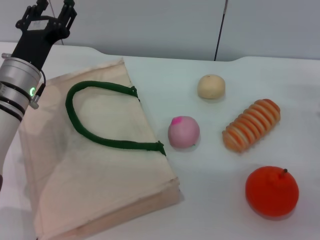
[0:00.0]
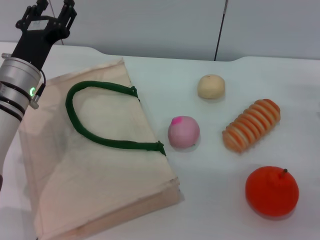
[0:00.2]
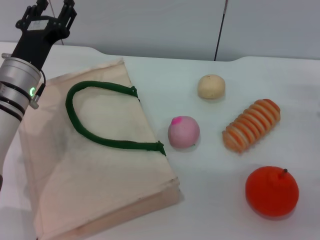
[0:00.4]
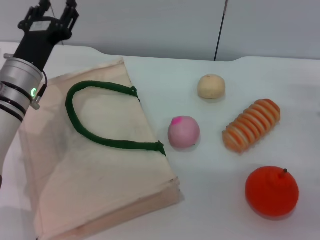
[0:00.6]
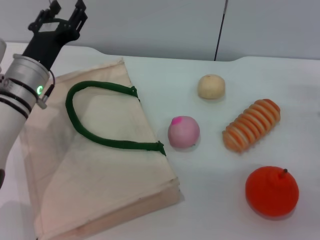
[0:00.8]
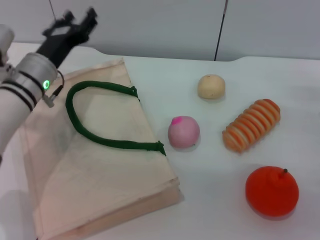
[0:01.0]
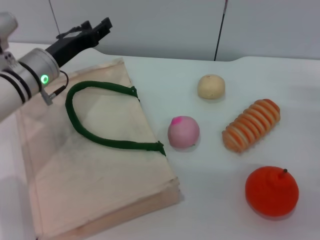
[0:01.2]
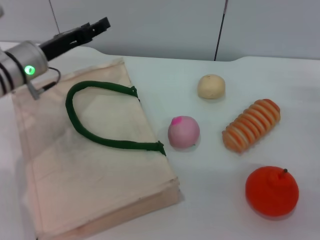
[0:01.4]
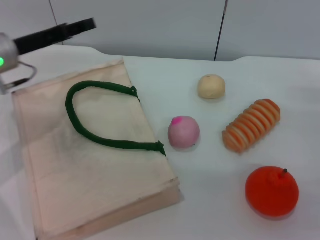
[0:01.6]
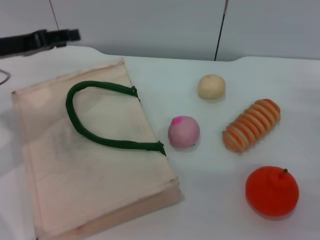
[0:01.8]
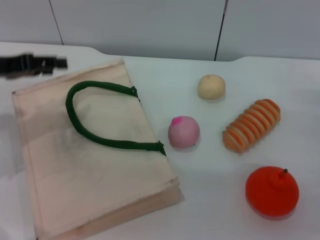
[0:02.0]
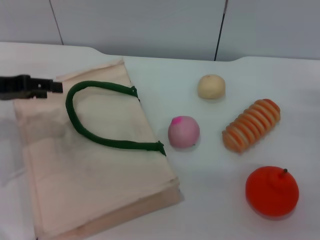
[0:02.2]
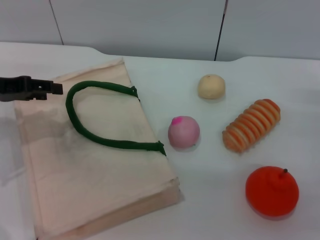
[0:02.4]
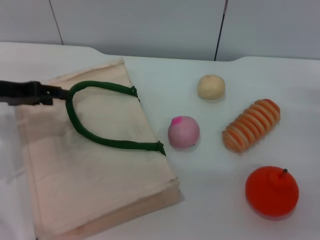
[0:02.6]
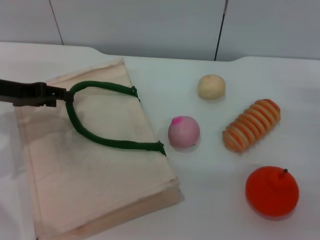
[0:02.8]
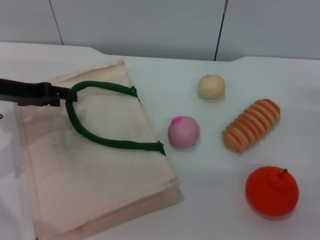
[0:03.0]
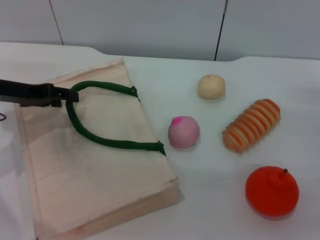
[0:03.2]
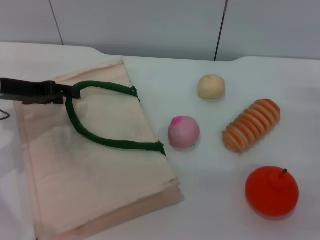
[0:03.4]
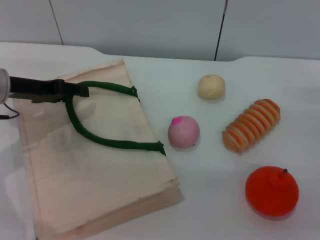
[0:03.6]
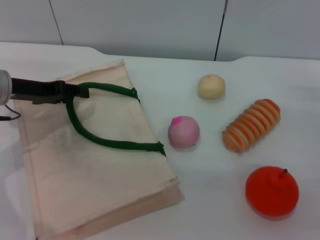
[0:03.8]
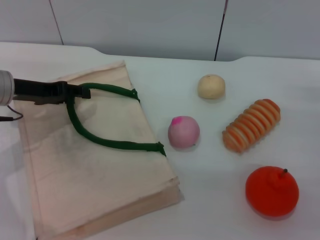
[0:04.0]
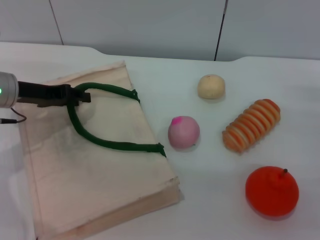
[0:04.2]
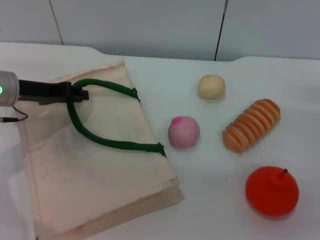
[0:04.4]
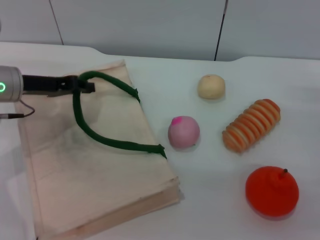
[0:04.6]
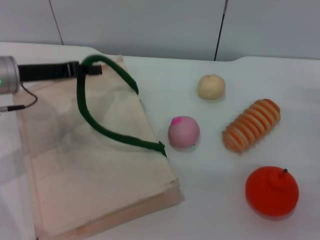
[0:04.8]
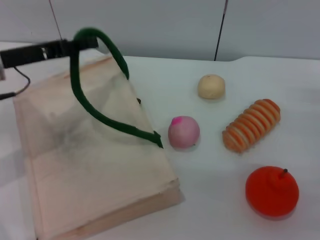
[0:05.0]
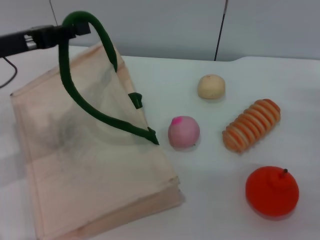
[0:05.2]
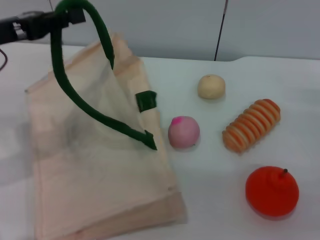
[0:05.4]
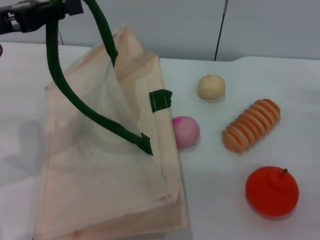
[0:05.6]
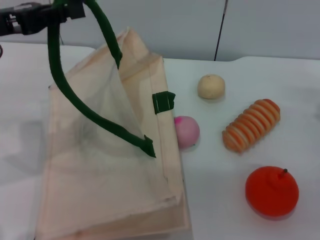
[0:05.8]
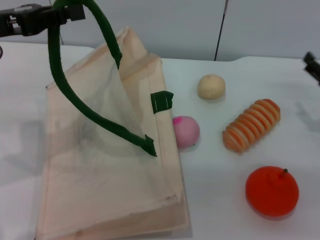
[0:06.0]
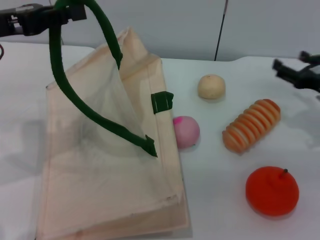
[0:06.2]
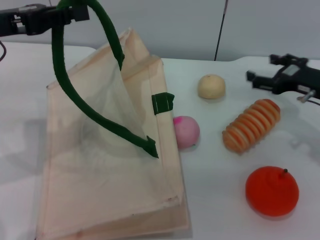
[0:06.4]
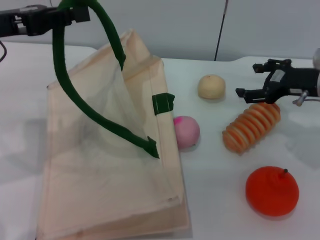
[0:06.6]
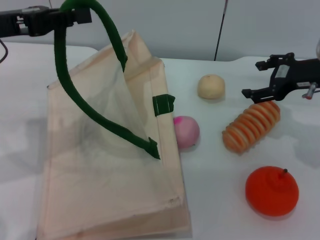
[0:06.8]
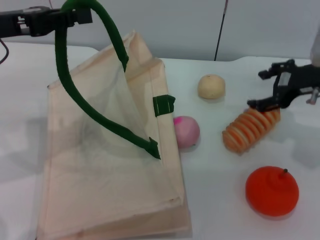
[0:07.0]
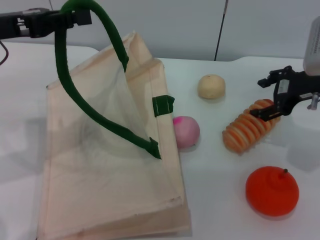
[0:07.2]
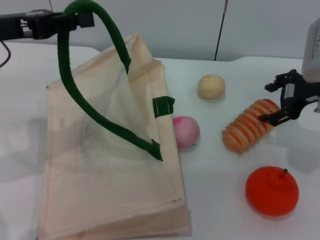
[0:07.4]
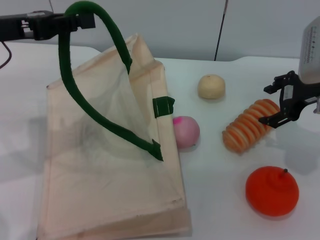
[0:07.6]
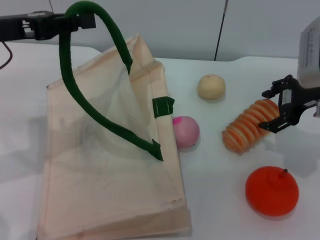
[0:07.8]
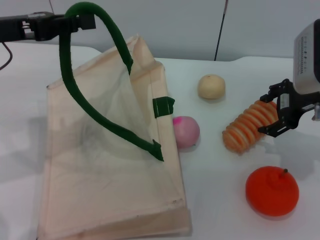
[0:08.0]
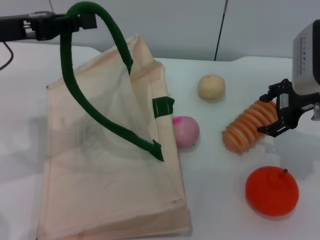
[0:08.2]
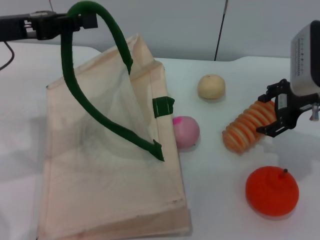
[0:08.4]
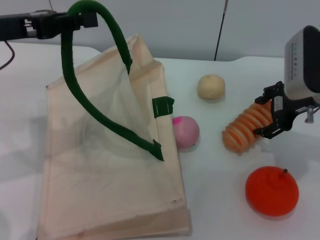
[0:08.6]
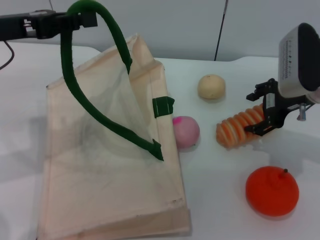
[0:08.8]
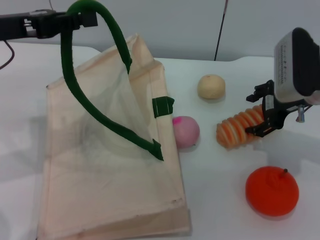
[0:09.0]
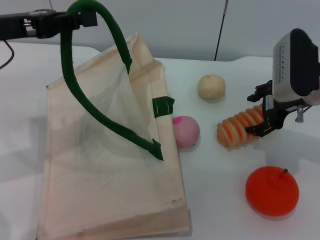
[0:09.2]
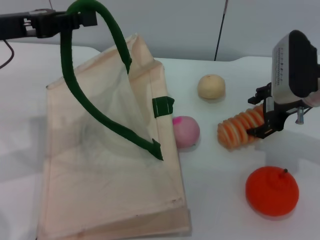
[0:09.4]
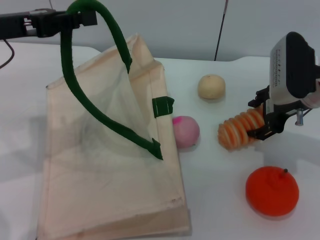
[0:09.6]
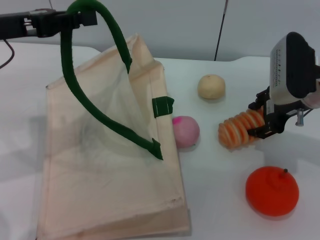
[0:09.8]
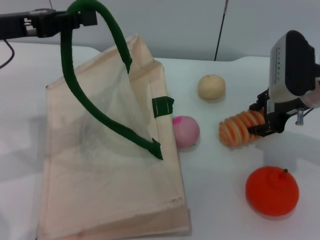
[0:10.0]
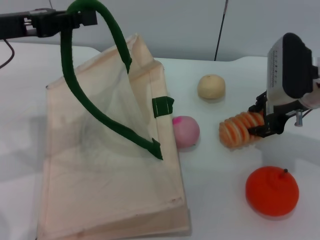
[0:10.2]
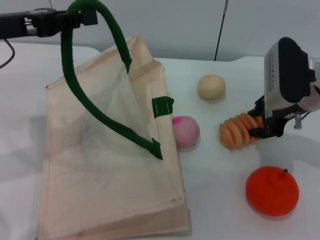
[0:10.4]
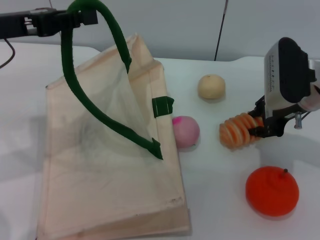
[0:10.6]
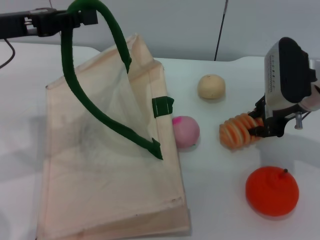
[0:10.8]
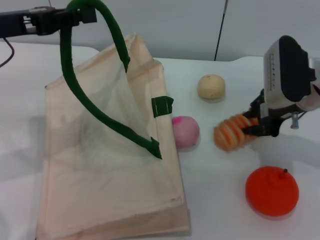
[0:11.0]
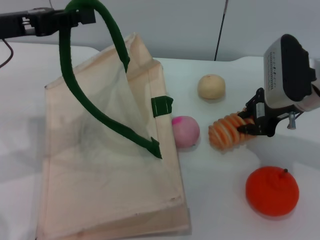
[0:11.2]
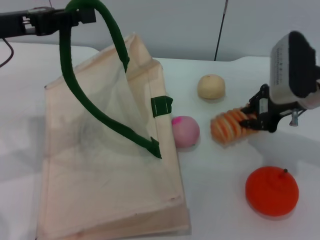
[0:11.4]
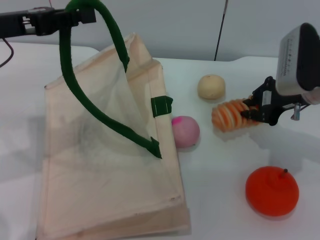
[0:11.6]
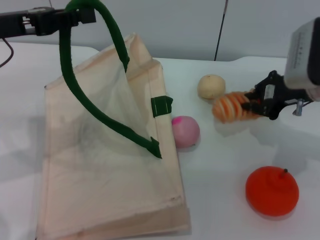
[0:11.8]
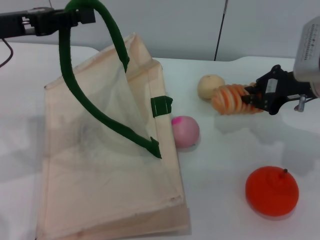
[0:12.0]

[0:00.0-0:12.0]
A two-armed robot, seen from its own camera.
Task of the whole recording: pick up the bread from the table and place it in the white handbag.
Step, 0:00.0 to 0:05.6: Lift the woven bag with the left gripper to open it.
0:00.0 to 0:01.6: The left gripper shifts roughly 5 cm to the left.
0:03.0 to 0:04.4: The left gripper closes.
0:04.4 to 0:06.0: The left gripper travels upward by roughly 10 cm, and closes up.
0:06.0 to 0:07.6: The right gripper heads upward, to the left and forward, covering some 15 cm.
0:07.6 to 0:09.0: The grippers move only a little.
0:09.0 to 0:10.4: The right gripper closes.
0:10.4 to 0:12.0: The right gripper closes up.

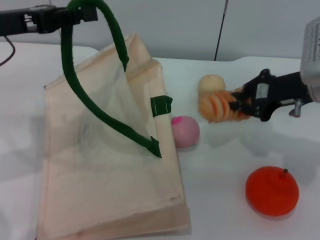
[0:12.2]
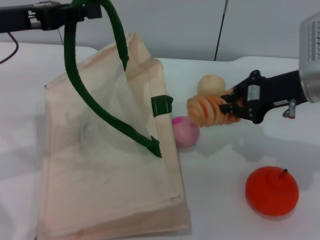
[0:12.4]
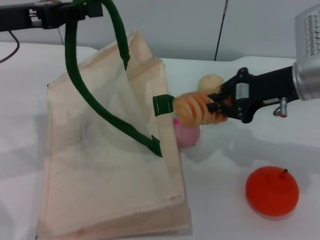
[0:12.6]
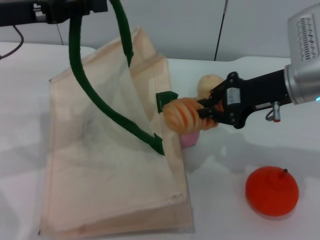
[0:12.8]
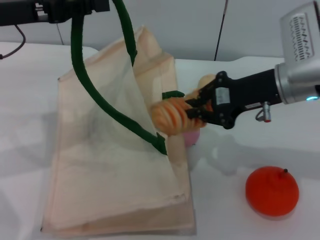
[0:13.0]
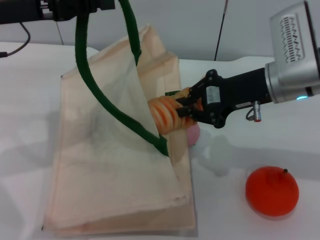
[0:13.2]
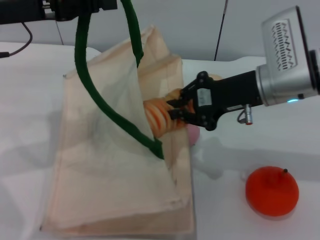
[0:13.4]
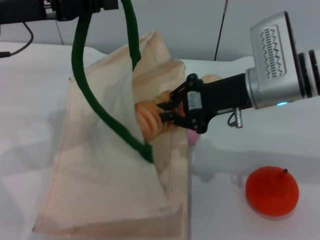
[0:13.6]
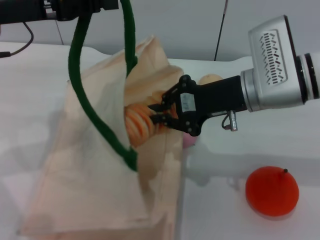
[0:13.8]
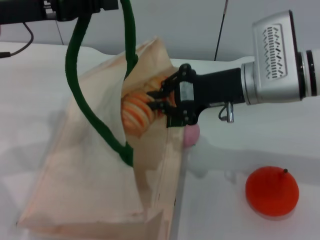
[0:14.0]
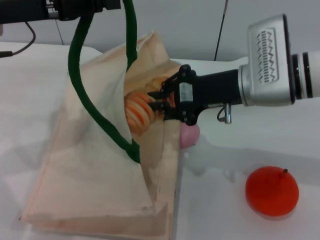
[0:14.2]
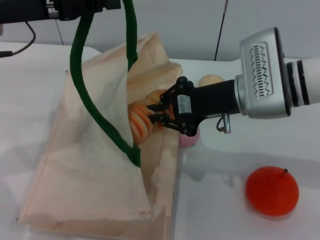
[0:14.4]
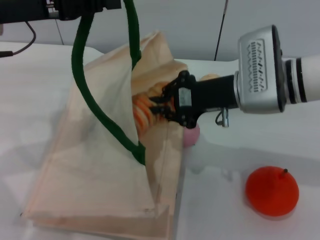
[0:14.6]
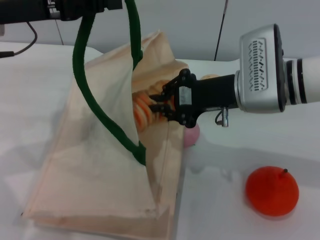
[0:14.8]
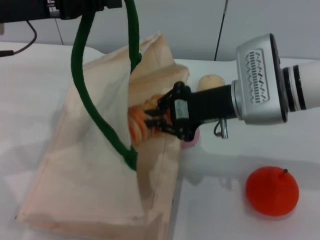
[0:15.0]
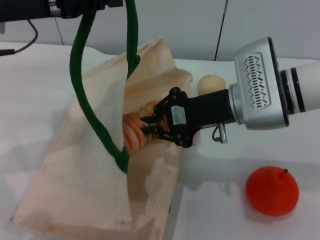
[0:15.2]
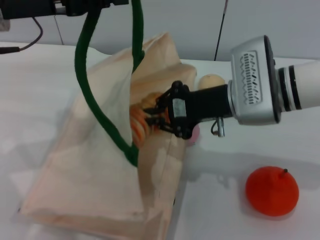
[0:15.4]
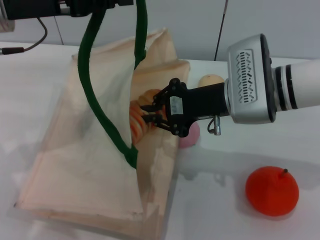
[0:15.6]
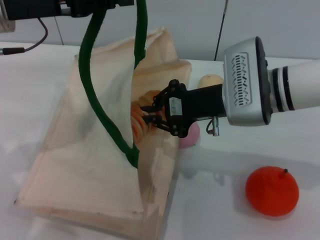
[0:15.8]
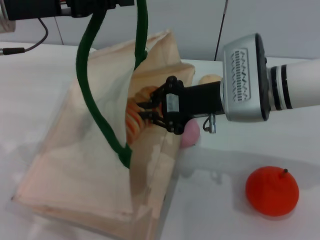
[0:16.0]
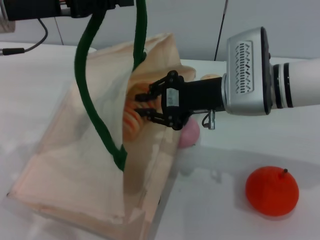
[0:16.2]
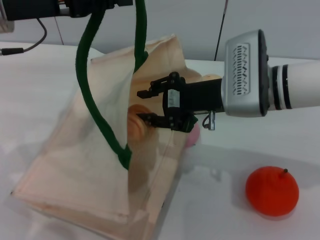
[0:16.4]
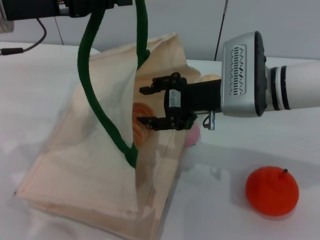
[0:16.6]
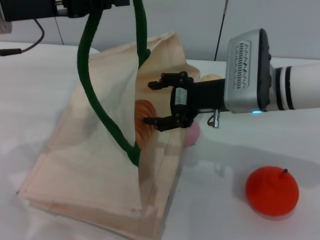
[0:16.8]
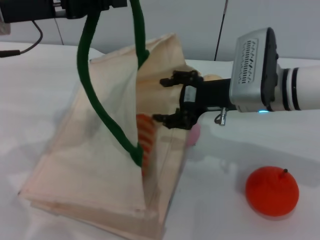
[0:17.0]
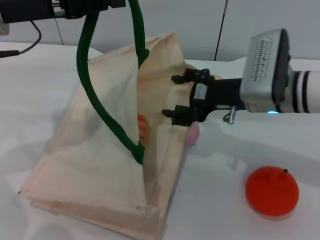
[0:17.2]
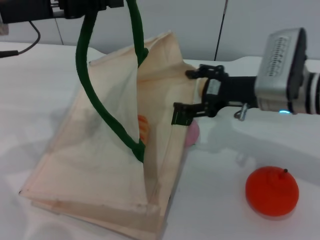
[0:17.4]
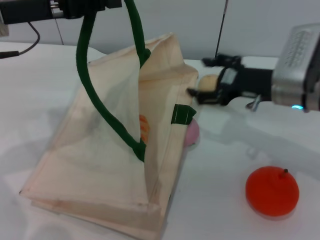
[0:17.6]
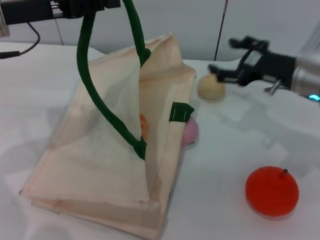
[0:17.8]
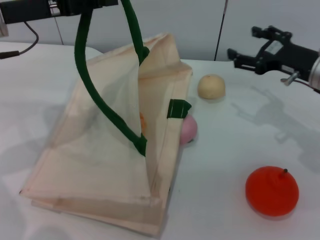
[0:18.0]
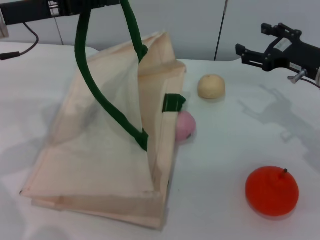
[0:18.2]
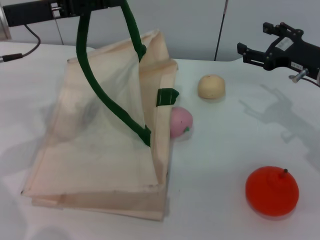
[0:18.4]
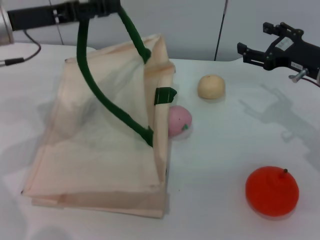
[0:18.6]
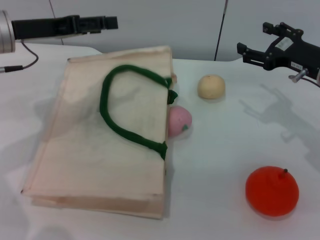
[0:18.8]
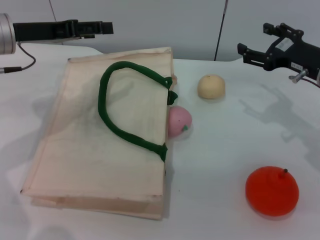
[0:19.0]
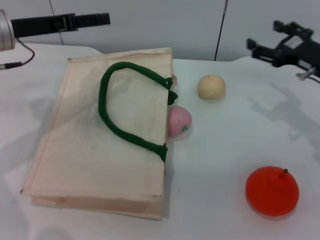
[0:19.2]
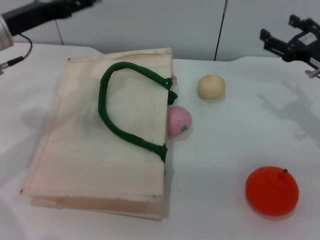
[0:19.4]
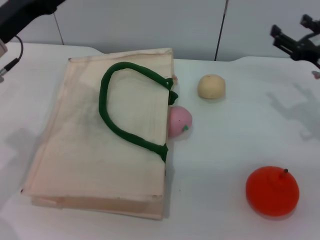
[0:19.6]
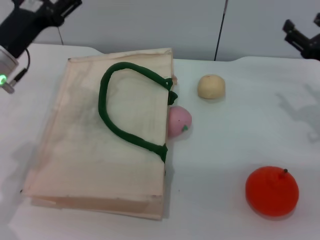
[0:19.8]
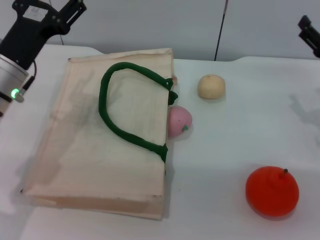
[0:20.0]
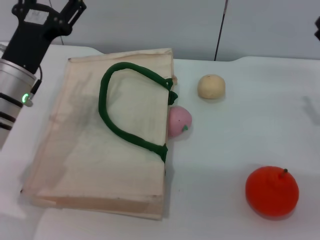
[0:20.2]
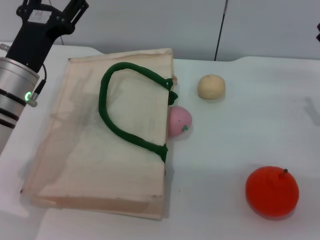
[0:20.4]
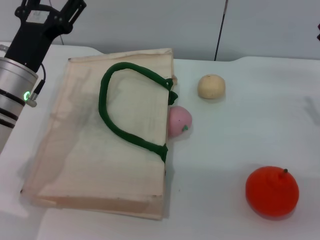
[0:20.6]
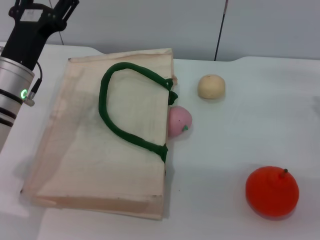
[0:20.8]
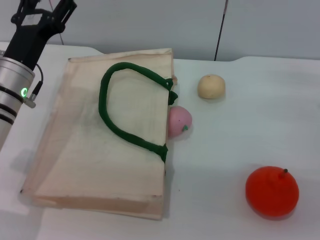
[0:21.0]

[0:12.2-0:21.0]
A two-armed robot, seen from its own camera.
Task of the whole recording: pick up the bread from the table and place it in the white handbag.
Step, 0:12.2 to 0:17.4: Place the bread into the woven bag with the right gripper.
Step, 0:17.8 to 0:19.2: Lower the woven bag with the left gripper to close it.
0:12.2 to 0:13.6: The right gripper shifts roughly 10 cm to the left.
0:15.2 to 0:16.6: The right gripper opens its fingers.
0:16.6 to 0:18.0: The right gripper travels to the right by about 15 cm, and opens up.
0:18.0 to 0:19.6: The left gripper travels downward by about 5 cm, and opens its fingers.
0:19.6 to 0:21.0: The left gripper heads downward, covering about 5 cm. Meanwhile the right gripper shifts by approximately 5 cm.
